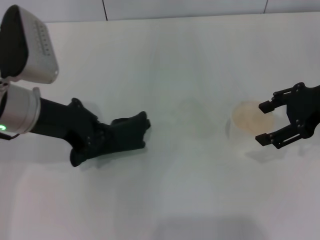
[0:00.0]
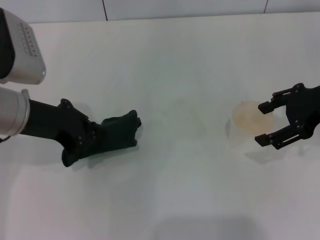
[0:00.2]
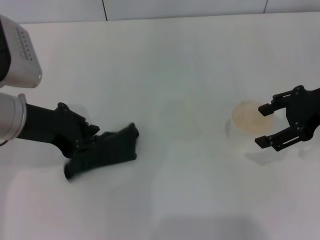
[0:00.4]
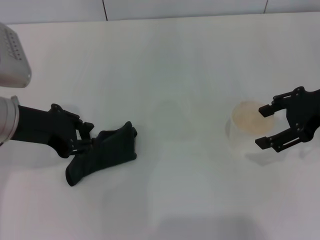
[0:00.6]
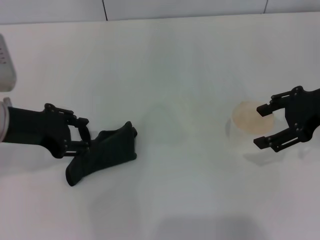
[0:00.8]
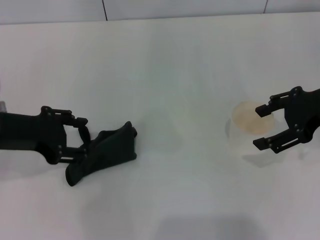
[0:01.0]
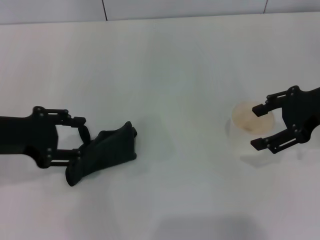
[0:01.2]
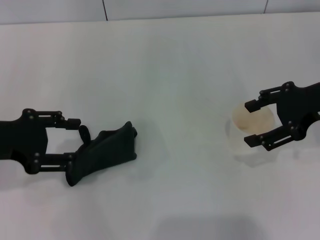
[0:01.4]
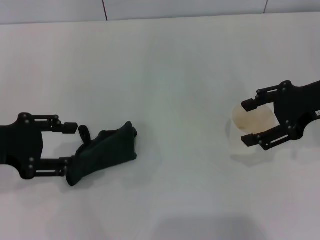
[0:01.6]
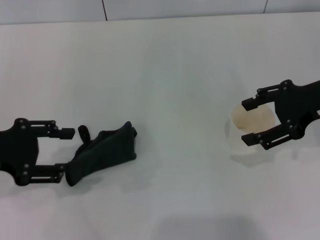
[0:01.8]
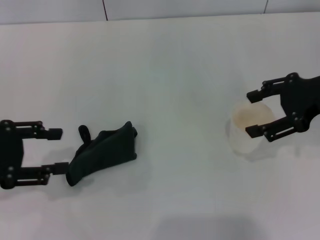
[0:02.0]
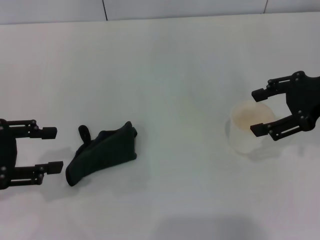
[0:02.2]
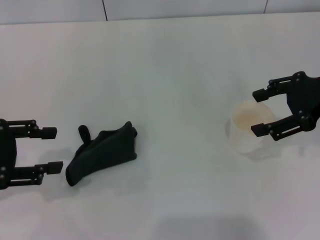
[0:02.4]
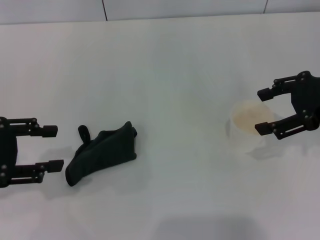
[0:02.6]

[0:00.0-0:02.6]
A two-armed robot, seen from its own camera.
Step, 0:00.4 to 0:00.8: Place the rag on the table with the left gripper.
0:00.0 to 0:01.2: The left gripper moves to the left, about 5 cm, and opens up.
0:01.2 to 0:02.6: The left gripper shifts roughly 5 cm to the left.

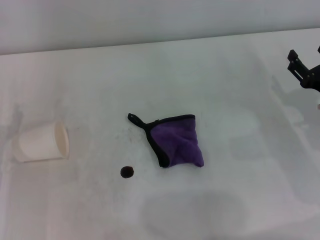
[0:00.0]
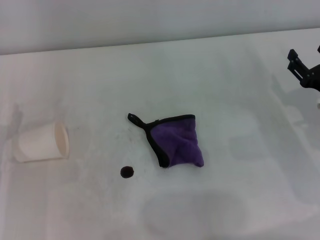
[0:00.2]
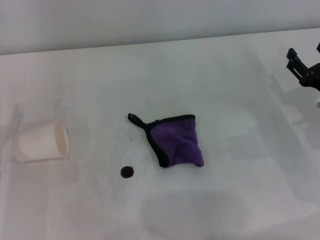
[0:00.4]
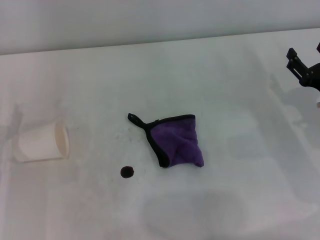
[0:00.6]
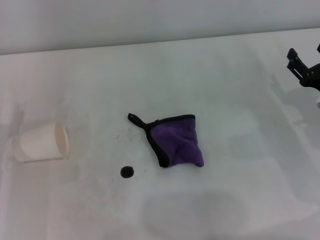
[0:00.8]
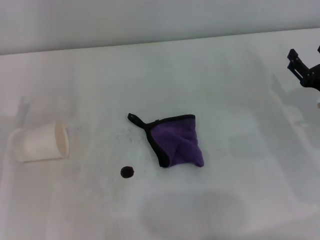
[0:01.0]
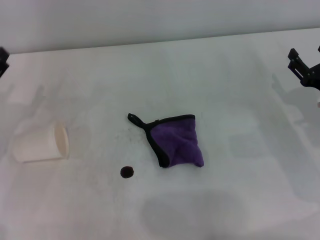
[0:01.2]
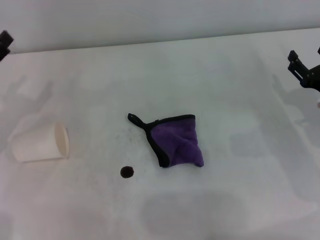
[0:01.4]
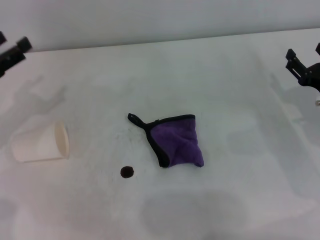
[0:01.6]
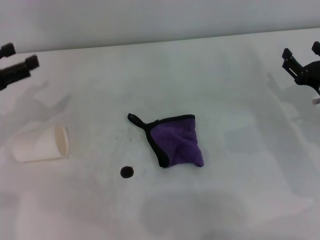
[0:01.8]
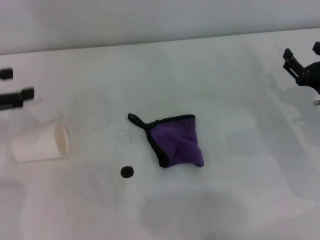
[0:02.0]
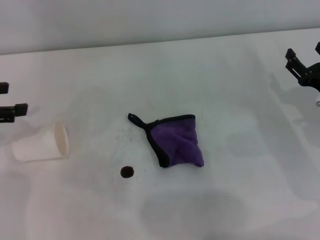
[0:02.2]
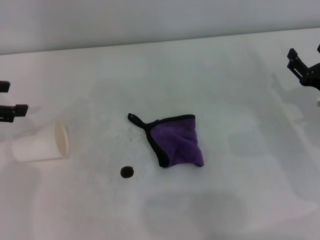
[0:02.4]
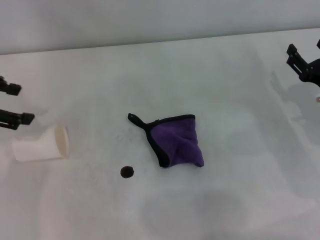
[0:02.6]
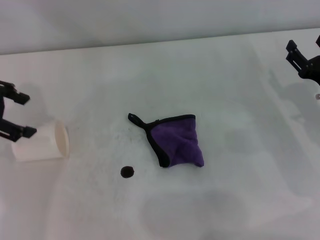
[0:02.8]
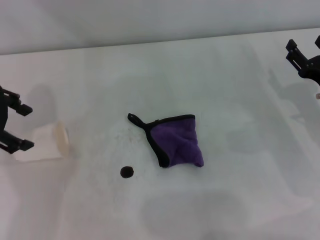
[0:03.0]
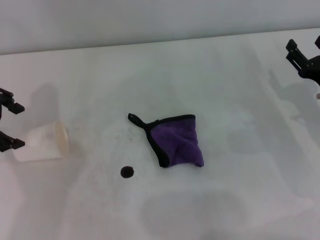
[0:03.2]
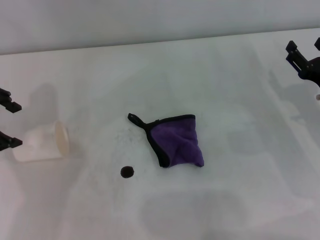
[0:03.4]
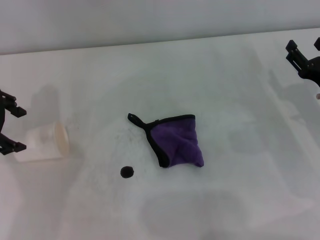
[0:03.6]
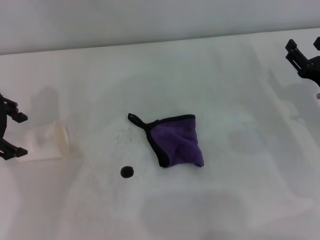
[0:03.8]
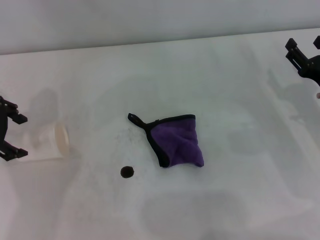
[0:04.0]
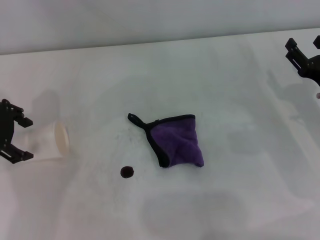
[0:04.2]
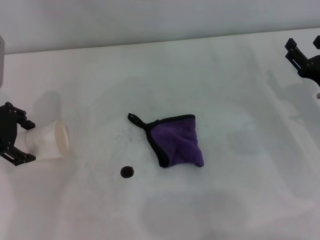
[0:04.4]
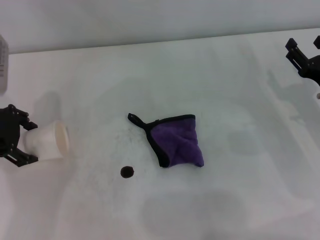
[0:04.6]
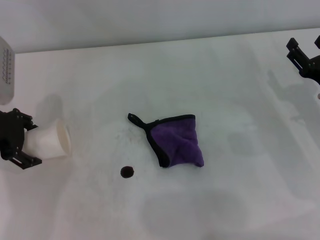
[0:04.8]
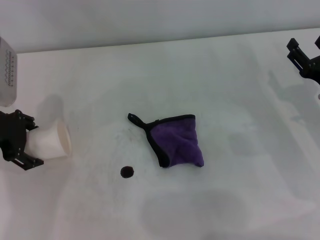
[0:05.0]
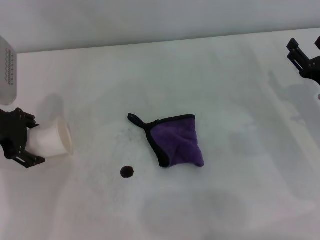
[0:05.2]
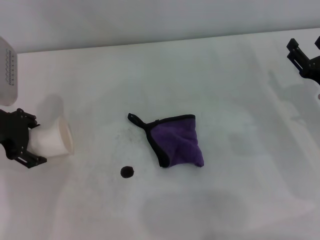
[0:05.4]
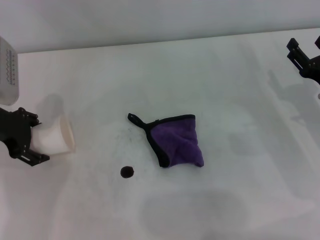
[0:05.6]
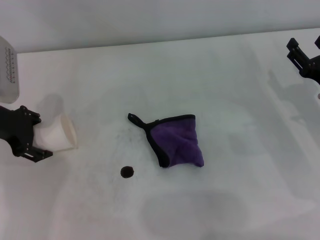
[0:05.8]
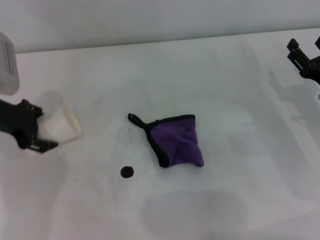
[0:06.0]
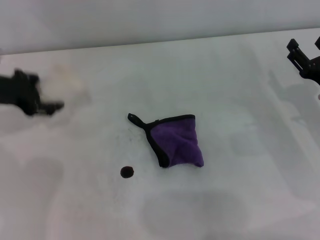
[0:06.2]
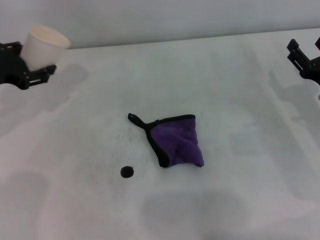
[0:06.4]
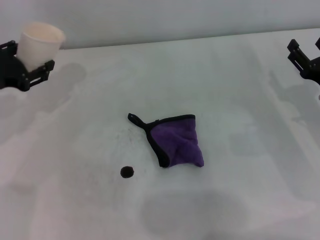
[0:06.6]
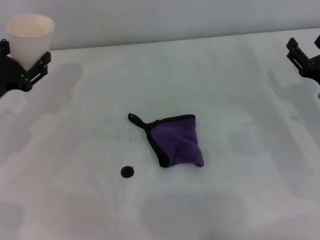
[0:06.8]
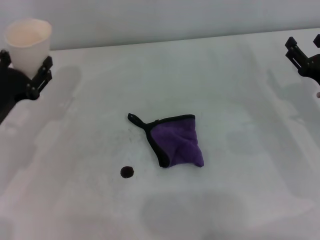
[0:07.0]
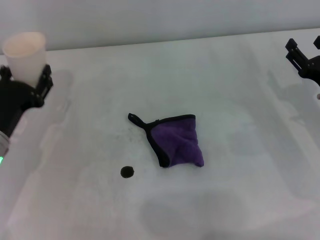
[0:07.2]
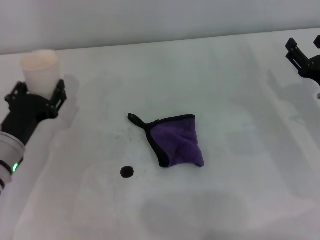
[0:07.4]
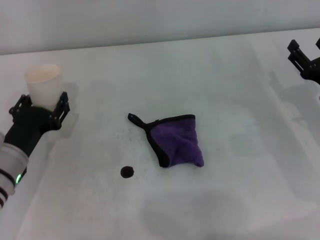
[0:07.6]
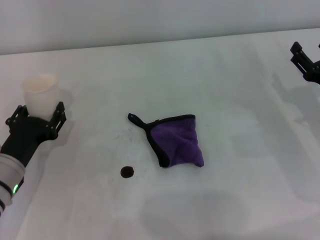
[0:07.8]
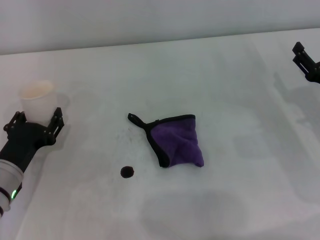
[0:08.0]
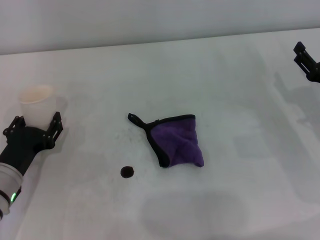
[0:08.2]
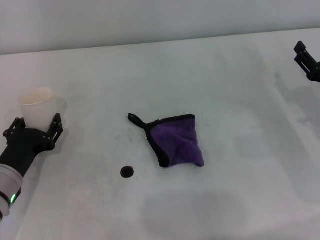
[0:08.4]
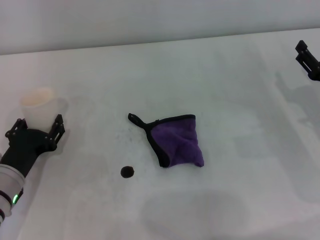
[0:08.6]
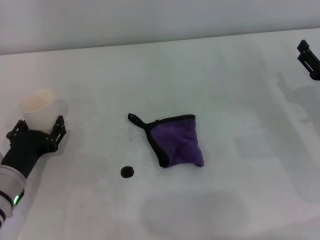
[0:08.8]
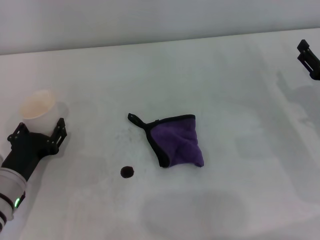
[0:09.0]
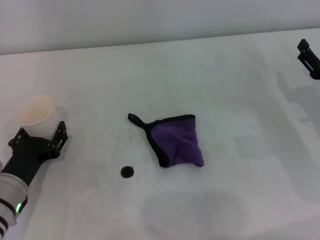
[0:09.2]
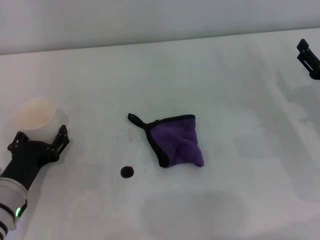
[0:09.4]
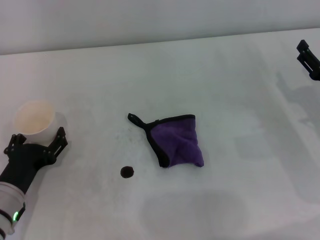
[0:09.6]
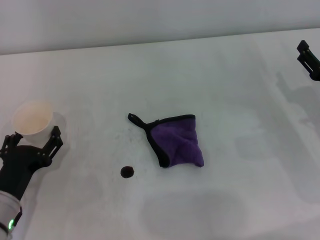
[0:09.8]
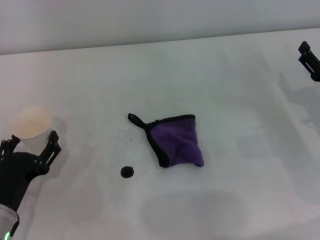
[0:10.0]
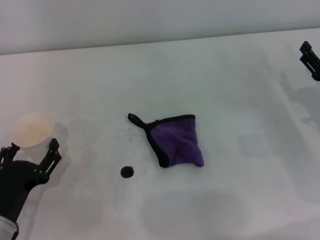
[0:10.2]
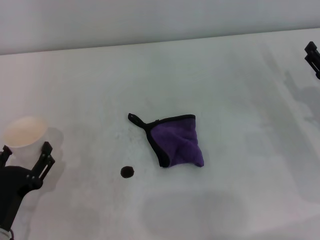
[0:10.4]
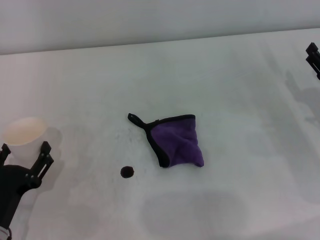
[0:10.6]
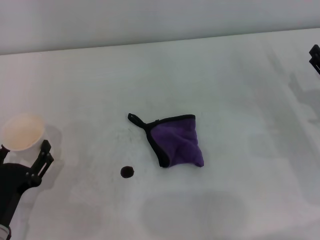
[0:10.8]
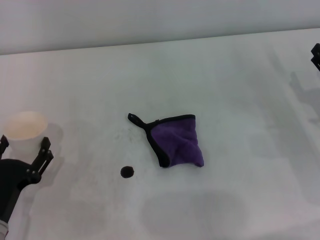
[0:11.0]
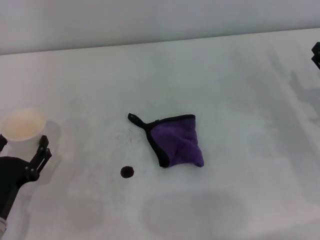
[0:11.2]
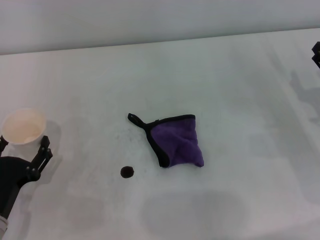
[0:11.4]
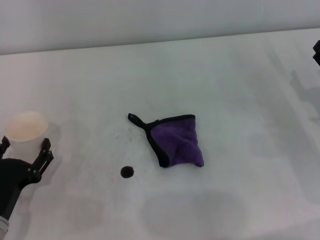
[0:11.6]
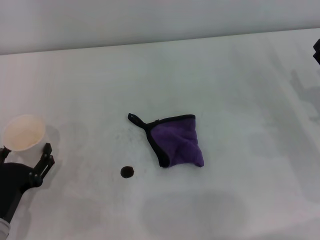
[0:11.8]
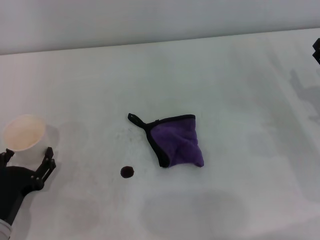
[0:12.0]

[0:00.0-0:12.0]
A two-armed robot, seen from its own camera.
Step, 0:00.0 to 0:05.0: Grasp the paper cup with the left gripper.
Step, 0:05.2 to 0:09.4: Stand the paper cup upright with the left gripper.
0:00.0 to 0:01.6: The left gripper goes about 10 cm upward and forward.
0:01.6 to 0:03.0: The left gripper heads upward, covering roughly 10 cm.
0:03.0 to 0:04.4: The left gripper heads downward, covering approximately 5 cm.
0:04.4 to 0:06.0: The left gripper closes.
0:06.0 to 0:07.6: The left gripper travels downward and backward by about 15 cm.
0:07.6 to 0:09.0: The grippers make only small movements.
0:09.0 to 0:10.4: The left gripper is displaced backward by some 10 cm, and opens its fingers.
0:10.4 to 0:12.0: There are only small adjustments of the grippers.

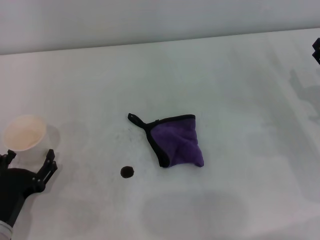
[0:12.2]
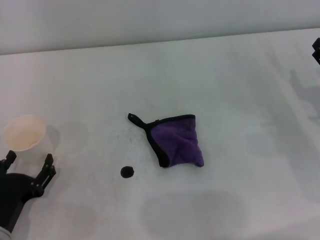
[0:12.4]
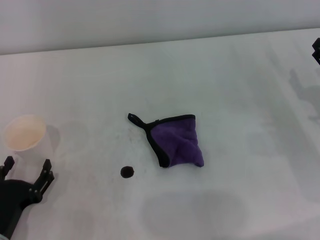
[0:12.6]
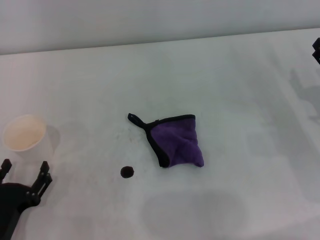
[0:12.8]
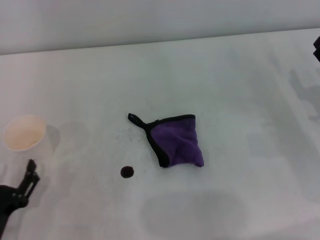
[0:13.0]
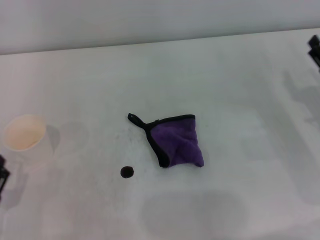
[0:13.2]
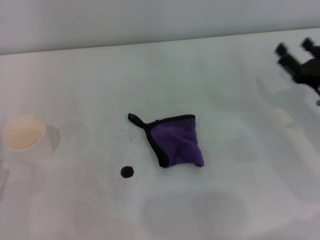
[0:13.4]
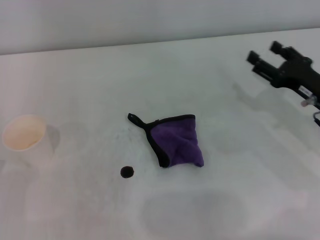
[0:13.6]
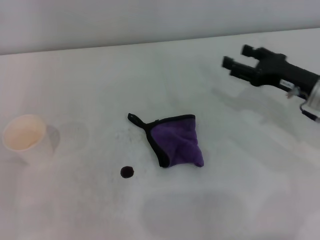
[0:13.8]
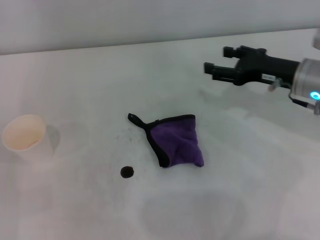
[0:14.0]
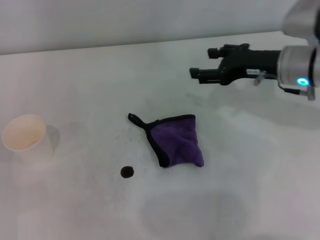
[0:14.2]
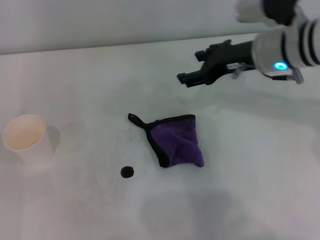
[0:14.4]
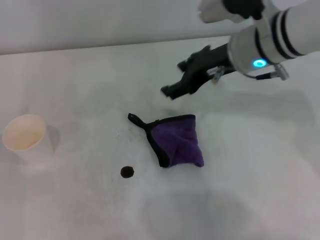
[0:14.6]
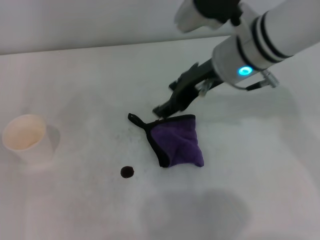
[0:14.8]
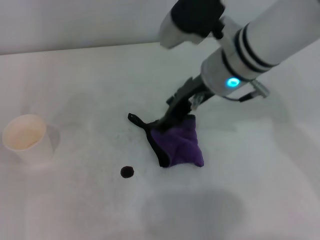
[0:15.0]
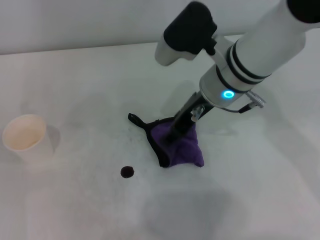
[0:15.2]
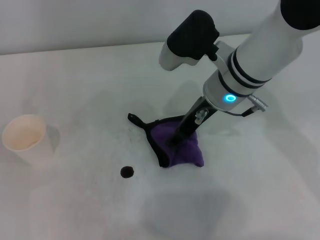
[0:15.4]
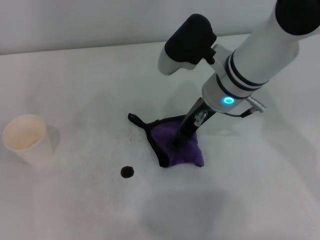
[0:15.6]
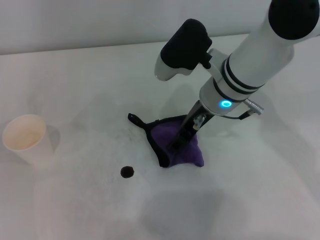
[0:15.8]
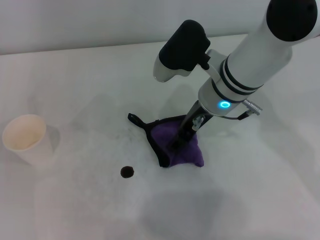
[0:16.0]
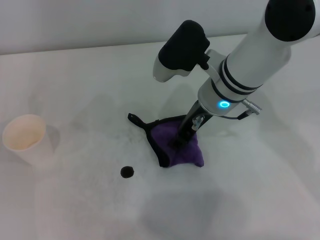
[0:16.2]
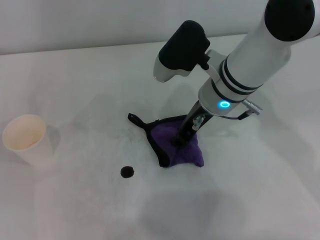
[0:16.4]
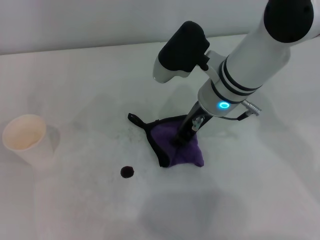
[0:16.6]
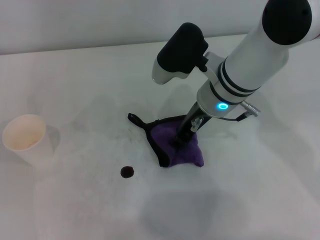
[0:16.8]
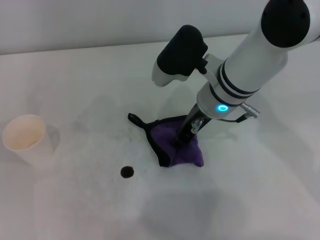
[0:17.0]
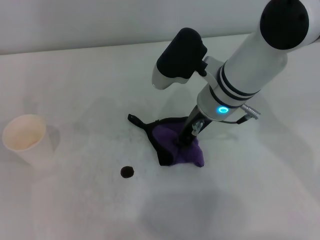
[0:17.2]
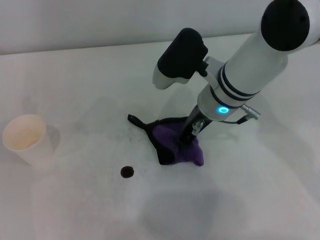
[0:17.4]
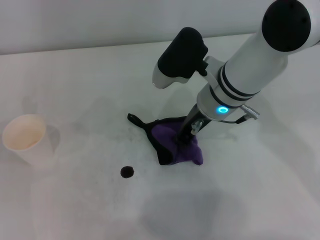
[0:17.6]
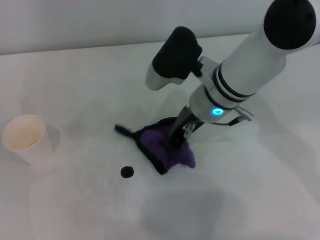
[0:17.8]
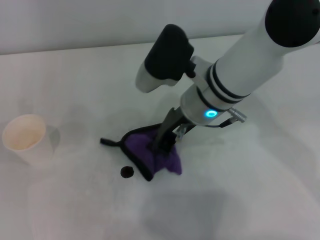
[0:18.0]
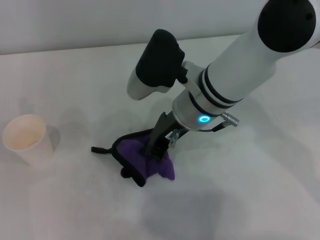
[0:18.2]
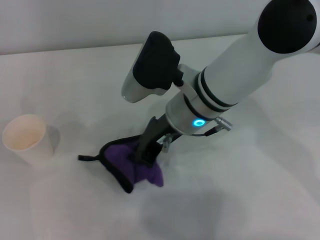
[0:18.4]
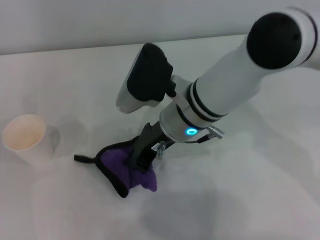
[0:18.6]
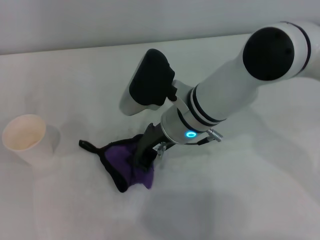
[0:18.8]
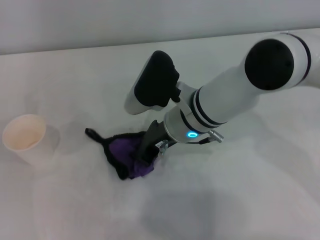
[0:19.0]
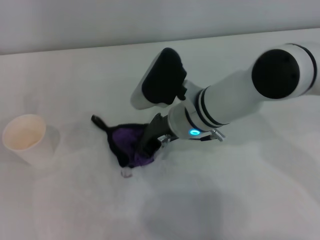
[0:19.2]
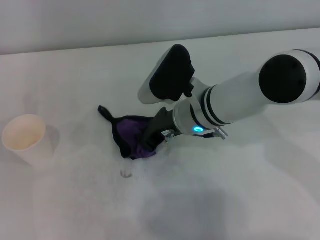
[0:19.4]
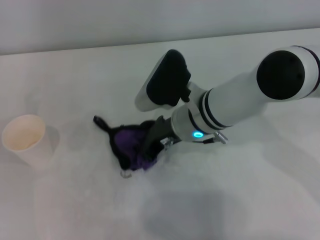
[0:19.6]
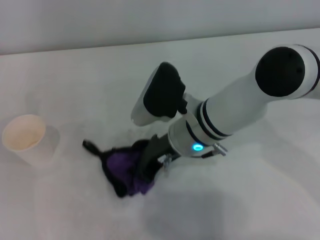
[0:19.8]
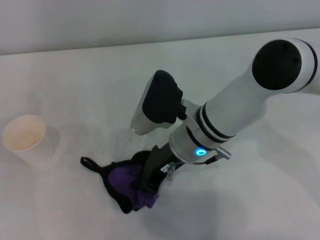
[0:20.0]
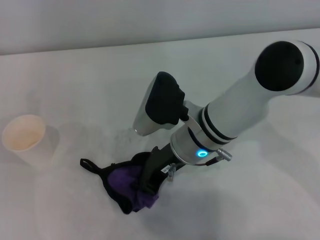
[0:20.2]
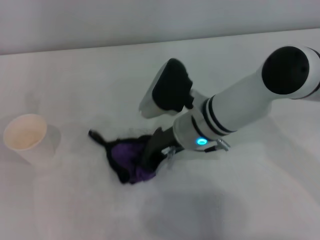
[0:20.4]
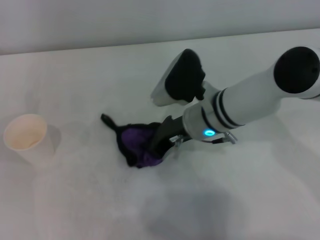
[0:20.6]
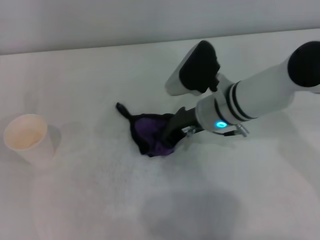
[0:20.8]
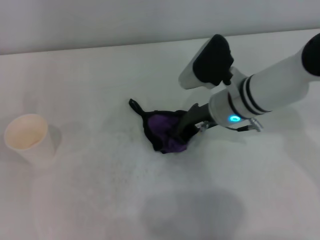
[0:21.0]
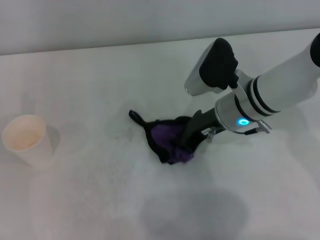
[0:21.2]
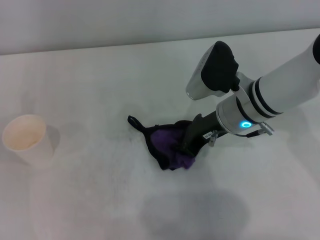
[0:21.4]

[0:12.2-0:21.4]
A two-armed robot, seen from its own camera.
Step, 0:12.2 to 0:17.6: Grasp the rag with the right gripper.
Step, 0:17.8 to 0:21.0: Wipe the stains off the table with the right gripper.
0:12.2 to 0:13.8: Both grippers travel together to the left, approximately 5 cm.
0:13.8 to 0:15.2: The left gripper goes about 5 cm forward, while the right gripper goes about 20 cm to the left and upward.
0:15.2 to 0:16.8: The right gripper closes its fingers.
0:16.8 to 0:18.4: The right gripper changes place by roughly 5 cm, and closes its fingers.
0:18.4 to 0:19.8: The right gripper moves downward, approximately 5 cm.
0:19.8 to 0:21.4: The right gripper shifts about 10 cm to the right.
